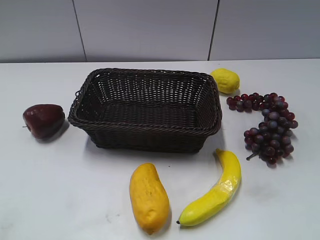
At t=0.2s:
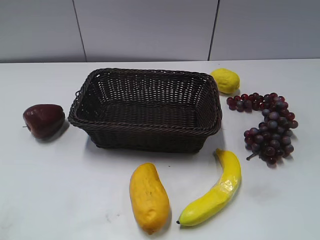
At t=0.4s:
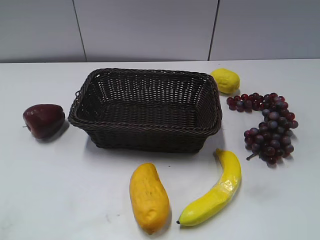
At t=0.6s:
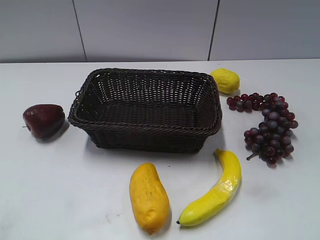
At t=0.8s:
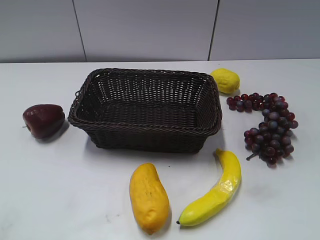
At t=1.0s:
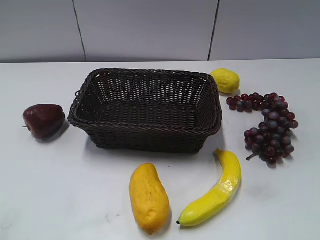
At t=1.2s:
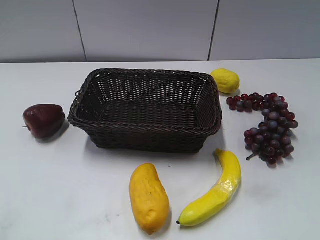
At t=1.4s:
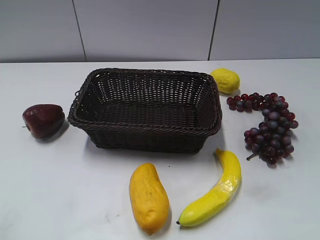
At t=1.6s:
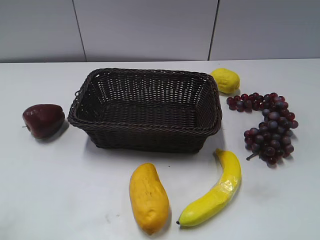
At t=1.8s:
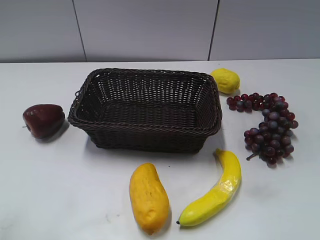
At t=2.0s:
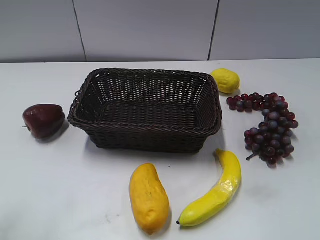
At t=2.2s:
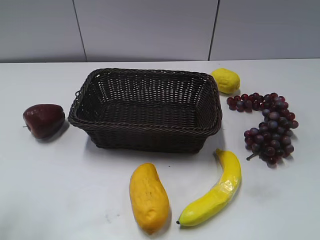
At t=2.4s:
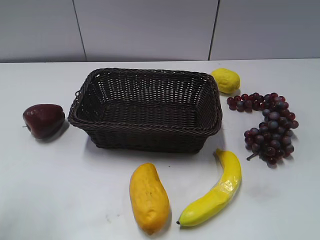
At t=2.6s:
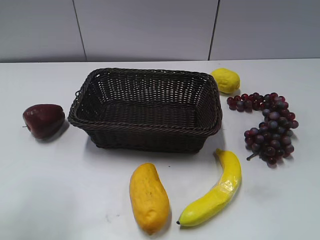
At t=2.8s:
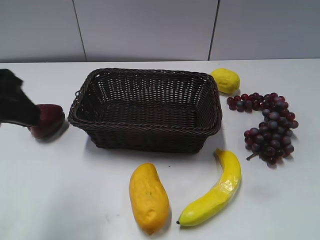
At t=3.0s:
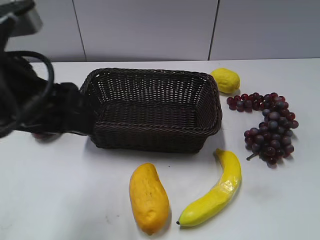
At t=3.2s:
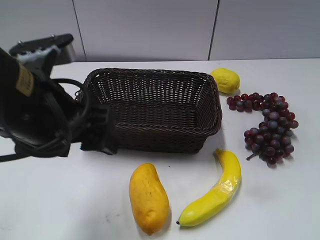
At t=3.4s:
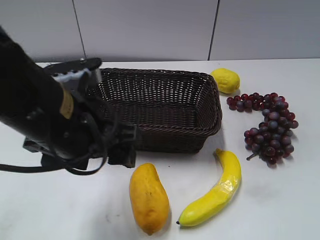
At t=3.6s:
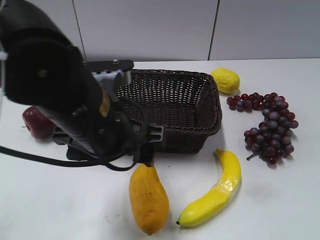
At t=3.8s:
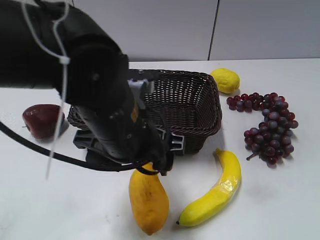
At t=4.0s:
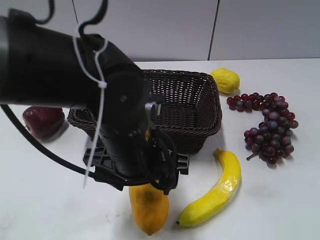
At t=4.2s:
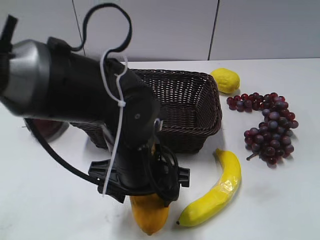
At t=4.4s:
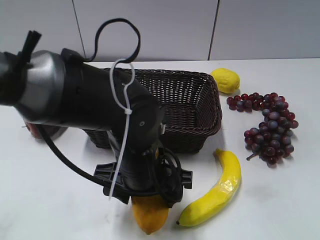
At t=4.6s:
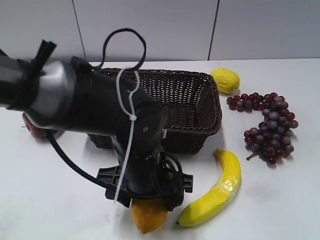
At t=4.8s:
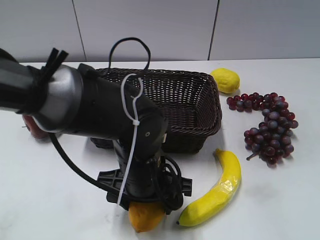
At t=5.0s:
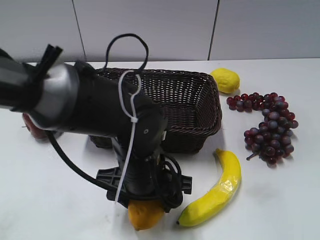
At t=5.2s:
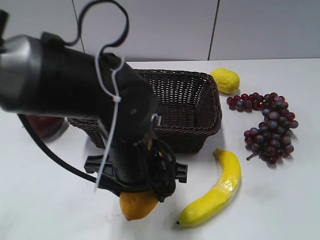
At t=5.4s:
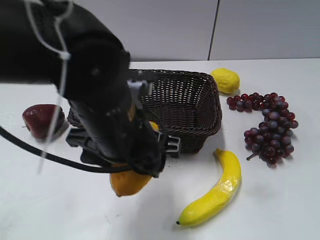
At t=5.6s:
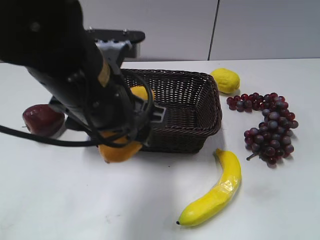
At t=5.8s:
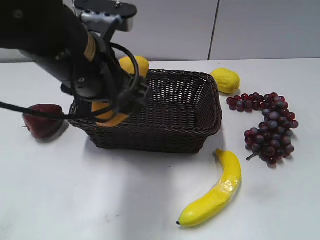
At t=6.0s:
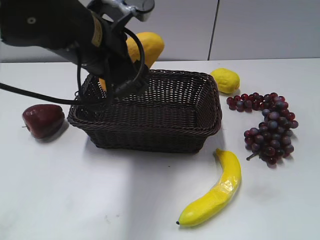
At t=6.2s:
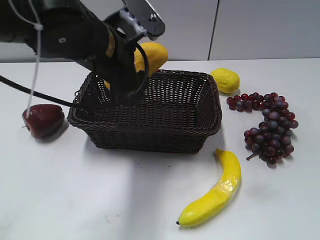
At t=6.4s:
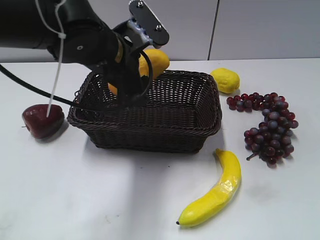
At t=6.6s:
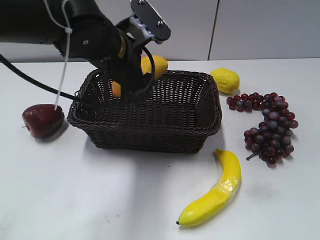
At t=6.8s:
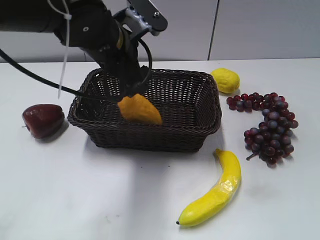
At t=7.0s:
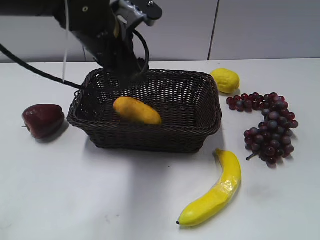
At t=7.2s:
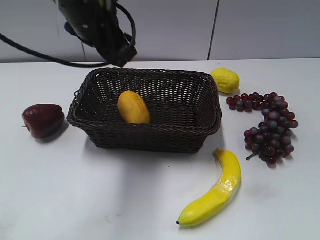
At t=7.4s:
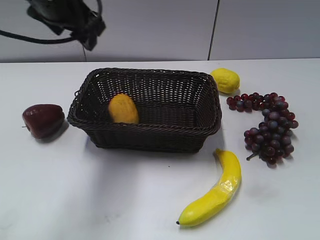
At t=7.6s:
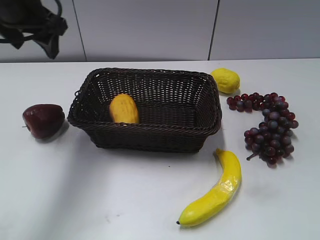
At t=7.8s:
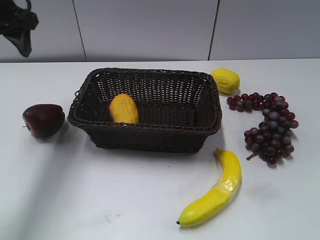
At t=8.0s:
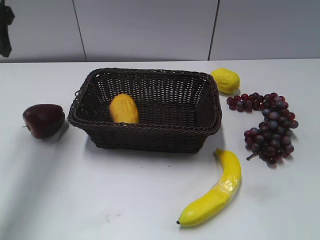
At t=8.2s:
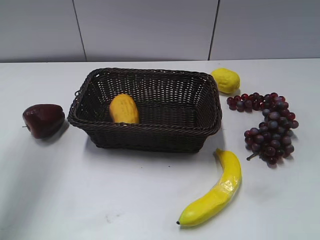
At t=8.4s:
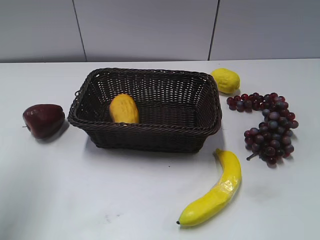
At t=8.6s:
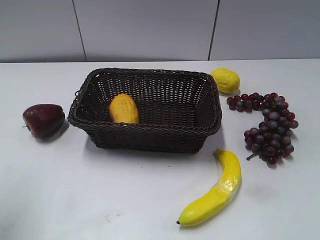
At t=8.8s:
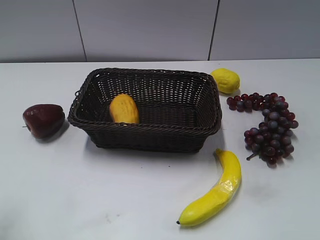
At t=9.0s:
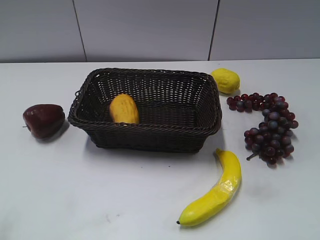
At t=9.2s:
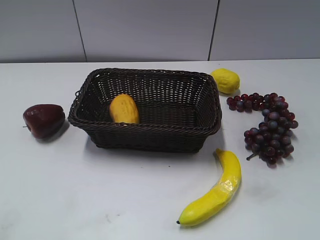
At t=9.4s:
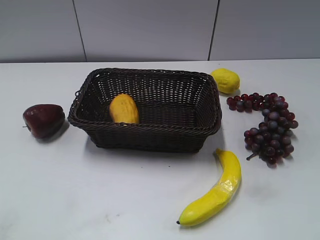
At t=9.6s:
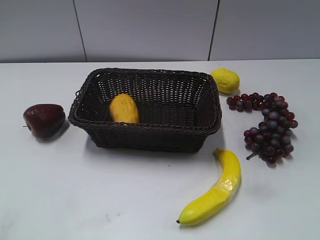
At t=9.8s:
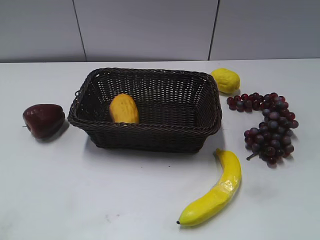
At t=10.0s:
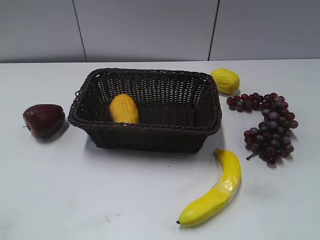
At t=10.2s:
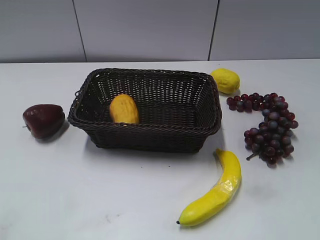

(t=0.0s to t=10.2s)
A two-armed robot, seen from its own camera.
Step, t=2.8s - t=4.8s: Grasp the mango with left gripper.
Step, t=5.0s - t=6.6s: Place the mango in the basket with left gripper.
t=1.4s - t=3.0s: The left gripper goes some 20 cm to the right and forward, and opens up.
t=3.0s - t=4.4s: The left gripper goes roughly 20 cm downward and to the right.
t=4.4s - t=5.8s: The left gripper shifts approximately 15 cm upward and to the left, and closes its fingers.
t=5.8s - t=7.2s: The left gripper travels forward by roughly 10 cm.
t=7.2s - t=8.8s: The left gripper shifts some 30 cm to the left and backward.
